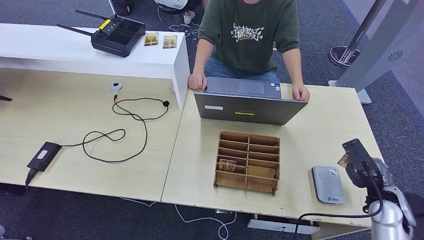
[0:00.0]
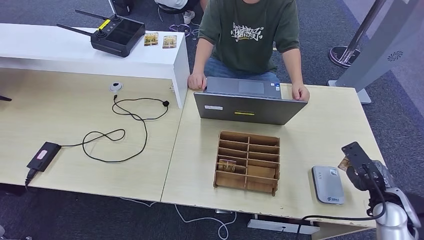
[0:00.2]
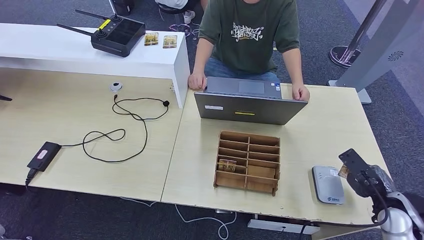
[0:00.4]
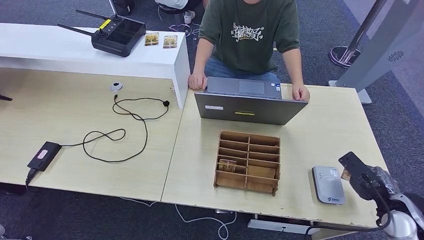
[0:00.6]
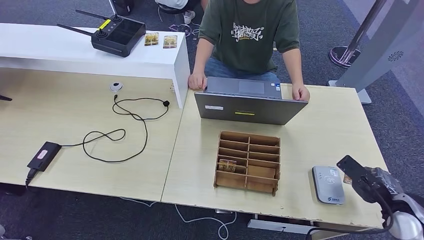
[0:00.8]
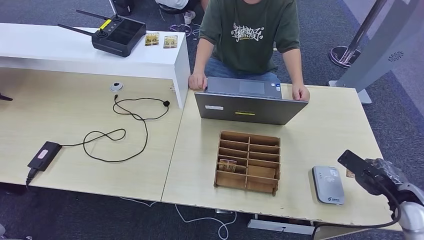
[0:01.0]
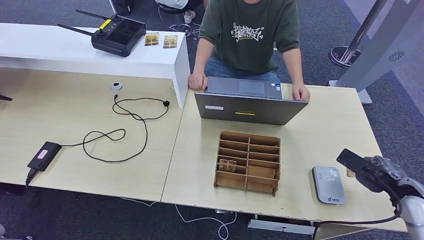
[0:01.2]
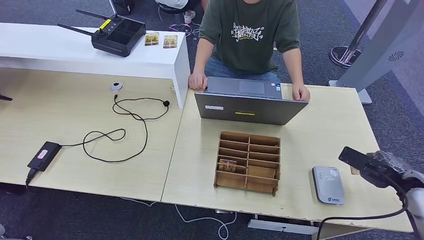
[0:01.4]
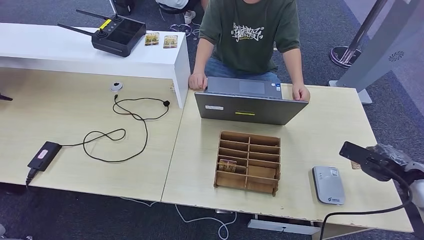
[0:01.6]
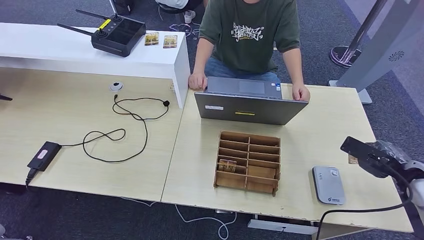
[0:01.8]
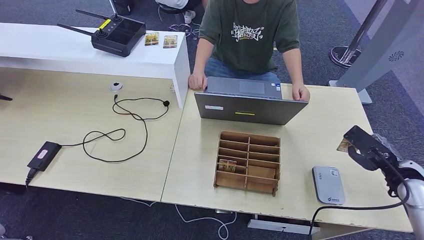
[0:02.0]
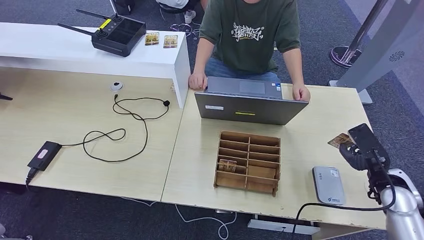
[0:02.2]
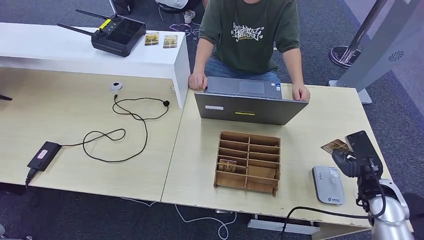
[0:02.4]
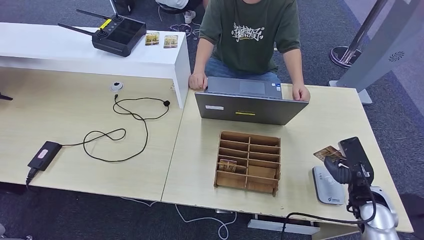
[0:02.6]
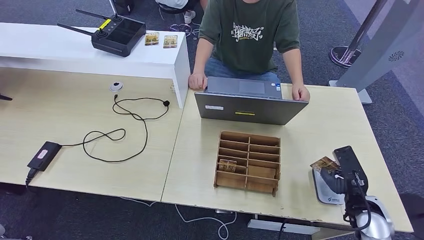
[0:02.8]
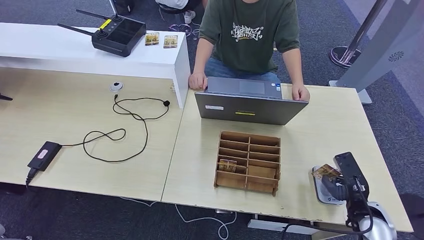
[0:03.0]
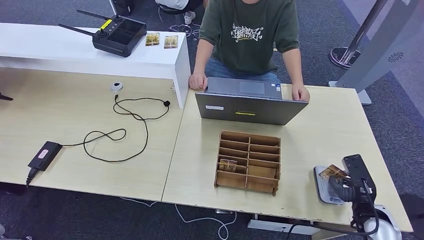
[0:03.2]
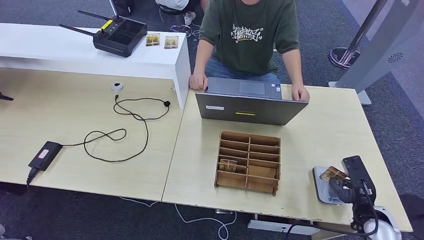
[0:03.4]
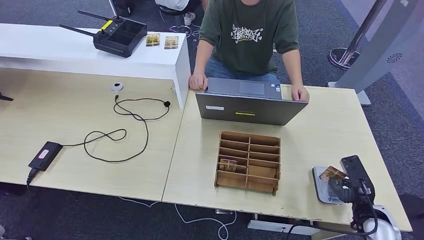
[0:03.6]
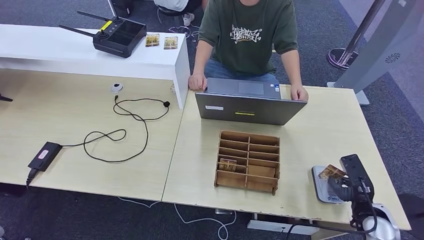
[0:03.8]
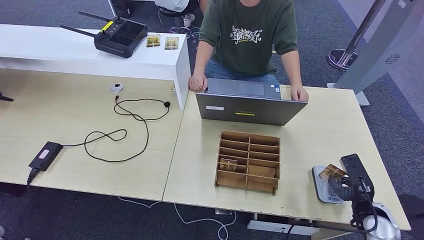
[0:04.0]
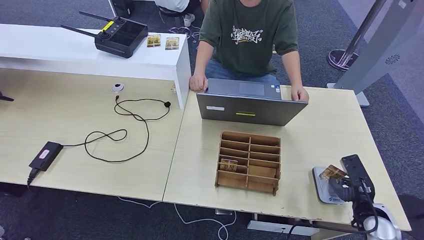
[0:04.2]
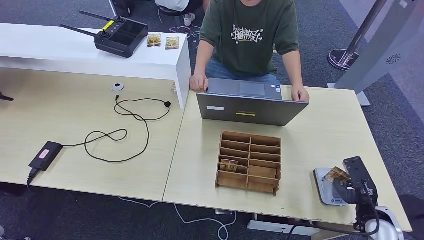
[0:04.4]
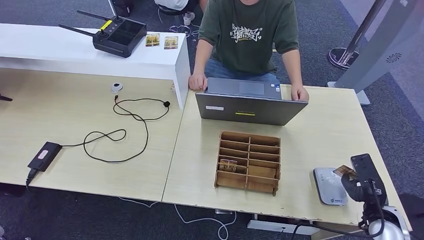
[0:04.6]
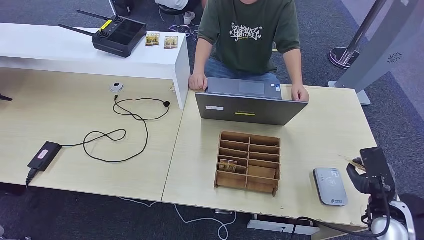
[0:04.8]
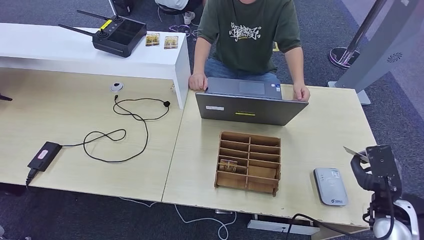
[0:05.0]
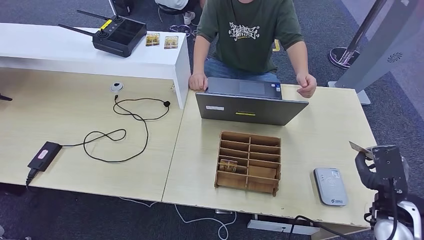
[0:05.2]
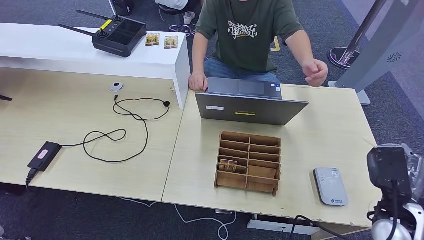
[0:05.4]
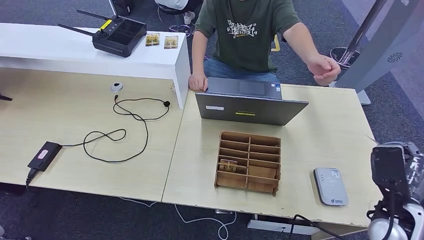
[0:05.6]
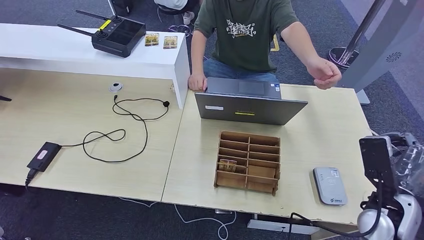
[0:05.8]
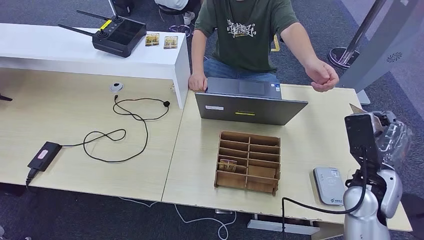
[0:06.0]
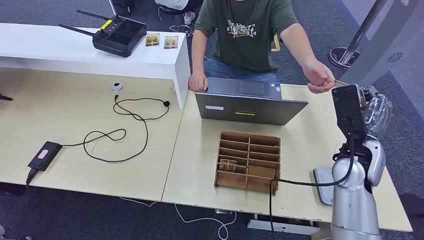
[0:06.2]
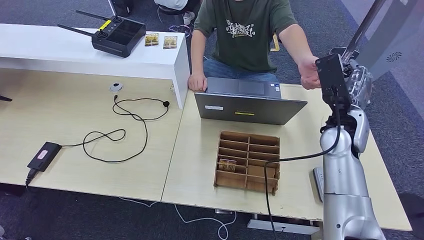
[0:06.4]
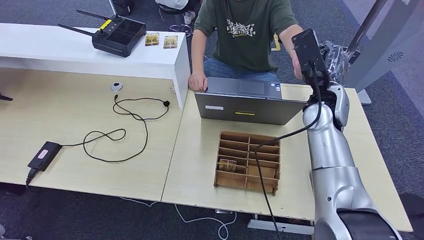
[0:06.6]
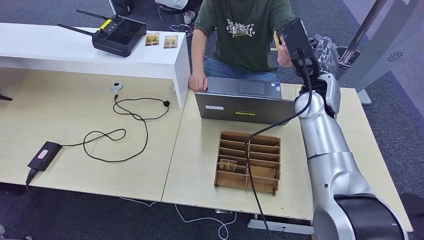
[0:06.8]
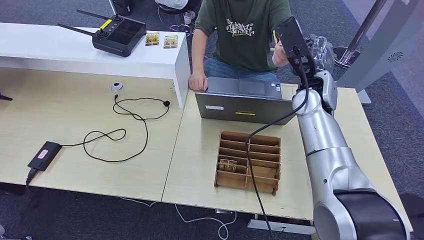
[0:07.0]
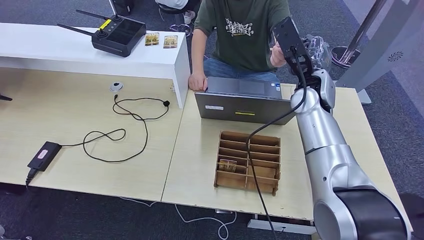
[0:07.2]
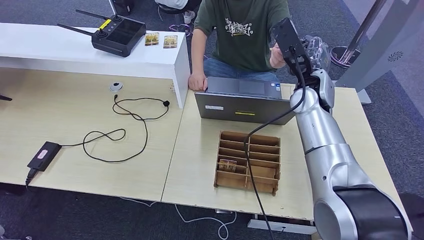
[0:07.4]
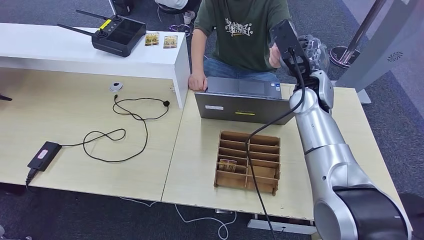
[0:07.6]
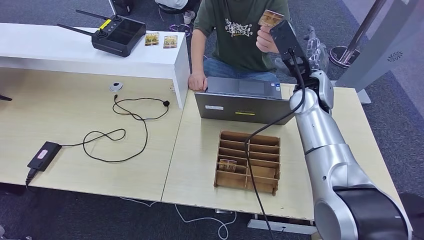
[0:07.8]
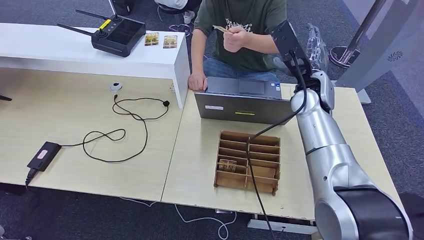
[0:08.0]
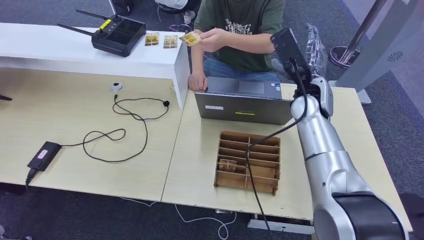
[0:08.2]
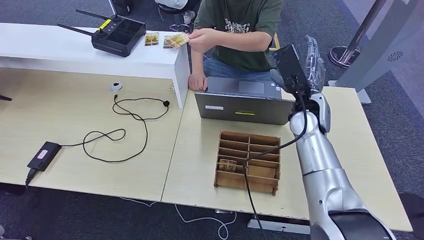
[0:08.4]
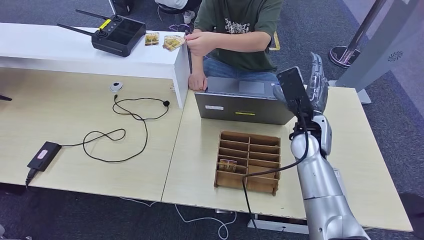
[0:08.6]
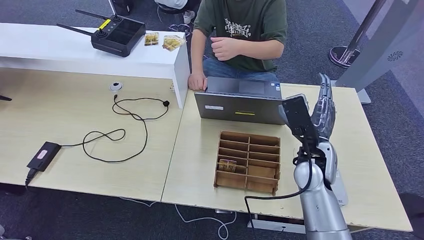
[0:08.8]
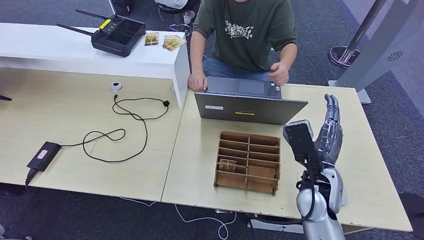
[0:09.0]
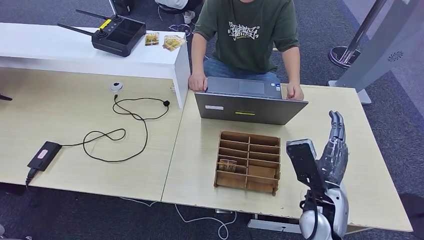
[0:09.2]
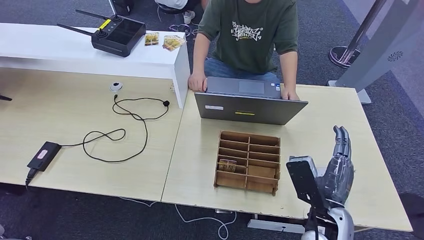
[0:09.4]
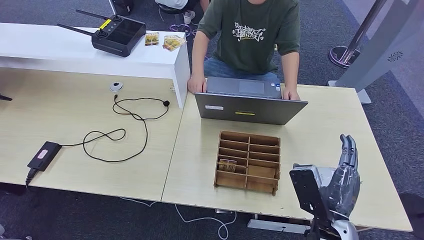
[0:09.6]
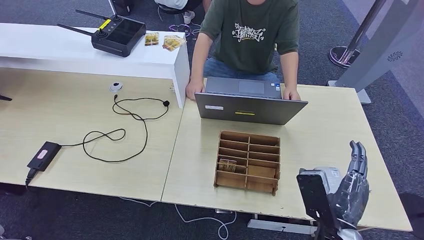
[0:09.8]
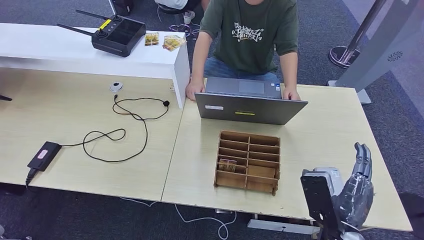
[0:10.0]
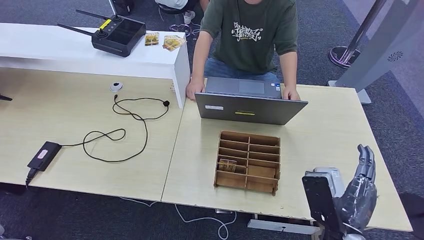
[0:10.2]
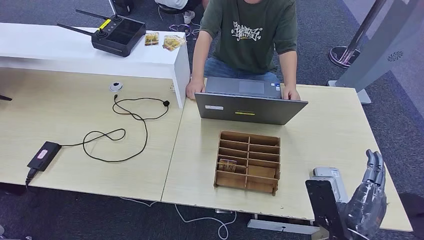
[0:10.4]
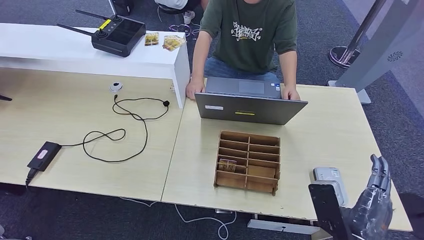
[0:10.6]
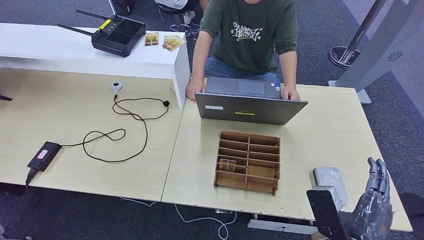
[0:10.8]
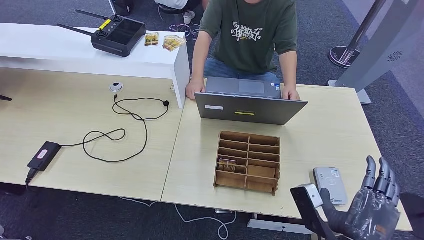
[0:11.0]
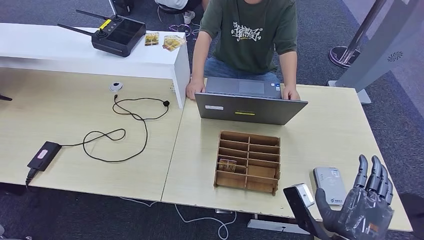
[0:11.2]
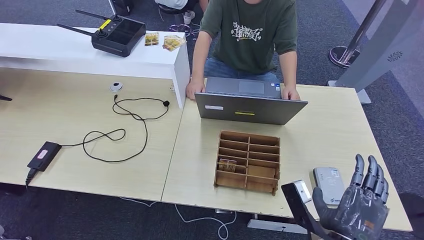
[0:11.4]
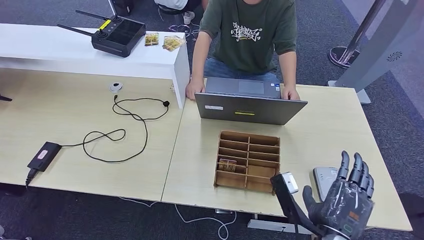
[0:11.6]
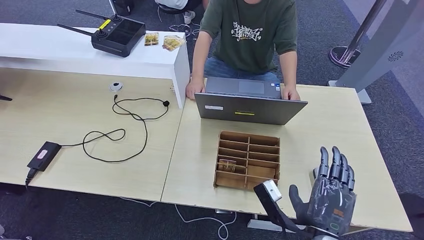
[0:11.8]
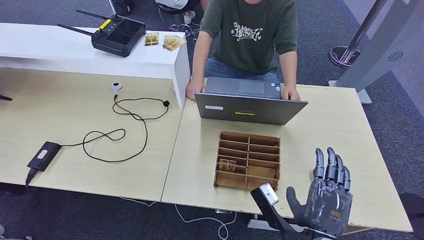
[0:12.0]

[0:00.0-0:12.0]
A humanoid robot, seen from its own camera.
Step, 0:00.0 to 0:05.8: Place the ID card on the card reader.
Step, 0:06.2 to 0:09.0: Hand the ID card to the person.
0:00.0 to 0:01.6: The right hand shifts roughly 15 cm to the right and upward.
0:01.6 to 0:03.0: The right hand shifts roughly 20 cm to the left, downward and backward.
0:03.0 to 0:04.4: The hands stay close to where they were, moving slightly.
0:04.4 to 0:06.0: The right hand shifts about 15 cm upward, to the left and forward.
0:06.0 to 0:07.6: The right hand moves forward, to the left and upward, roughly 25 cm.
0:07.6 to 0:09.0: The right hand shifts about 20 cm backward and downward.
0:09.0 to 0:10.4: The right hand shifts roughly 15 cm backward.

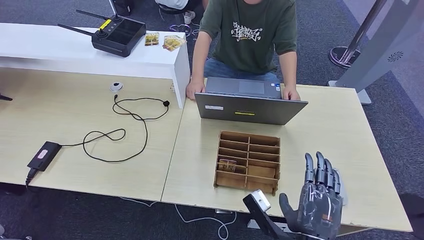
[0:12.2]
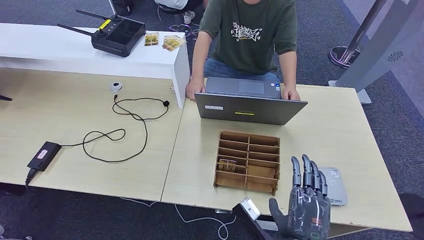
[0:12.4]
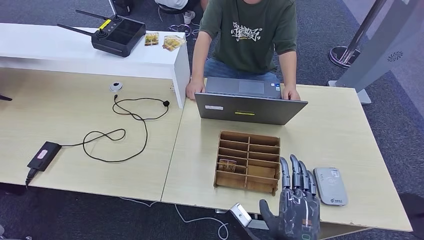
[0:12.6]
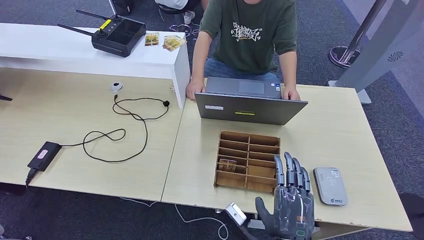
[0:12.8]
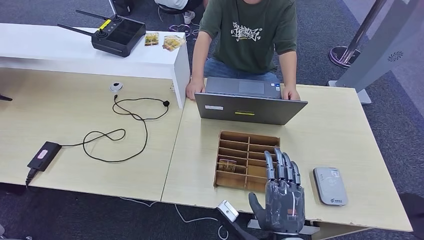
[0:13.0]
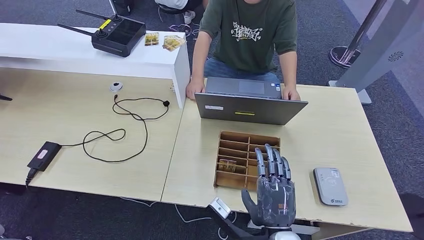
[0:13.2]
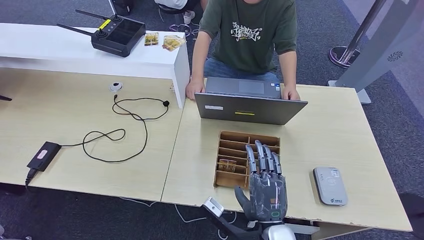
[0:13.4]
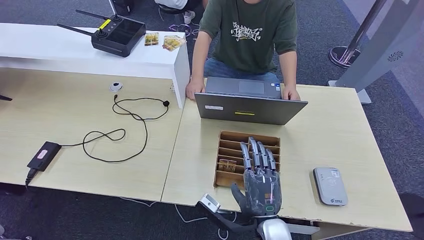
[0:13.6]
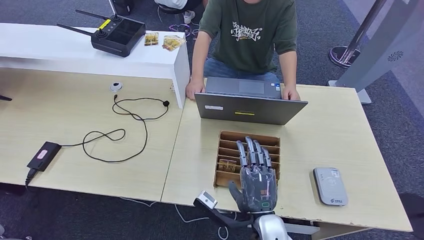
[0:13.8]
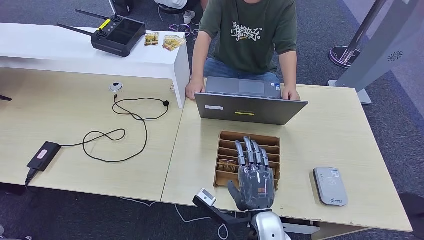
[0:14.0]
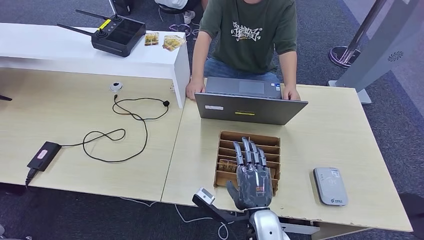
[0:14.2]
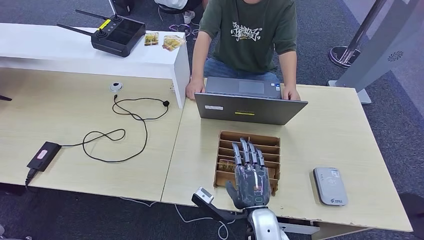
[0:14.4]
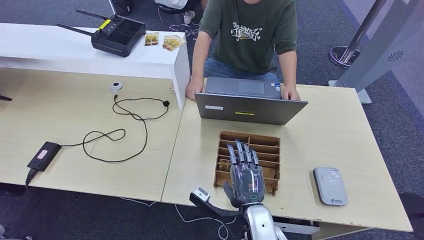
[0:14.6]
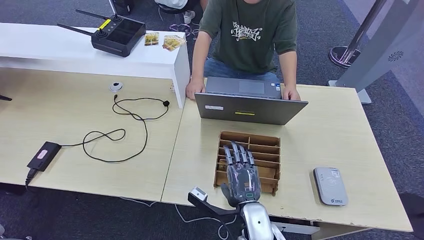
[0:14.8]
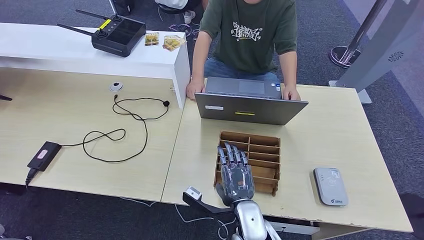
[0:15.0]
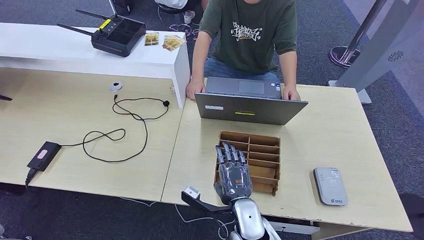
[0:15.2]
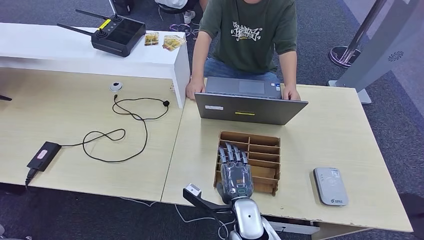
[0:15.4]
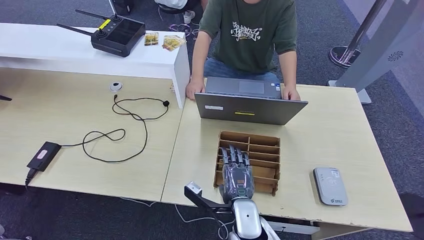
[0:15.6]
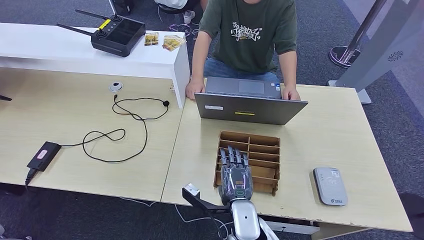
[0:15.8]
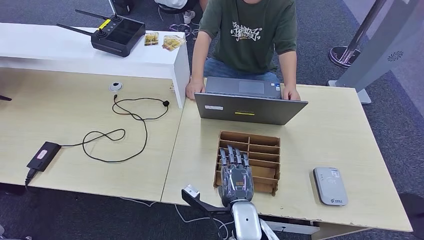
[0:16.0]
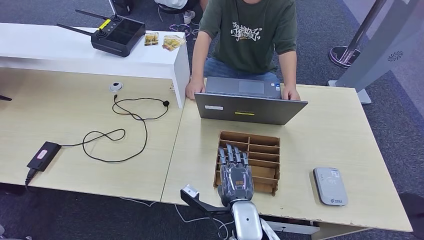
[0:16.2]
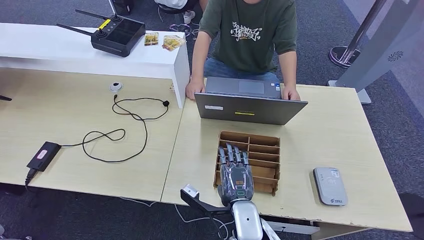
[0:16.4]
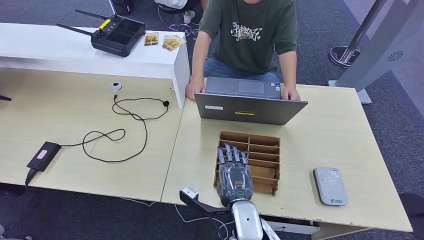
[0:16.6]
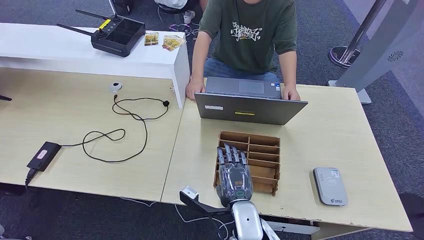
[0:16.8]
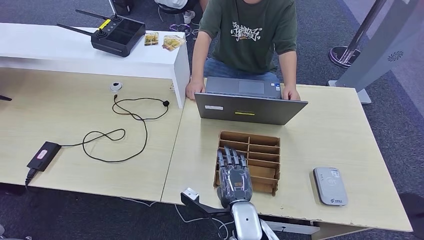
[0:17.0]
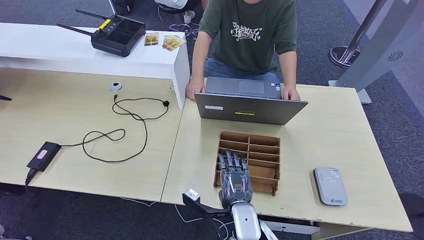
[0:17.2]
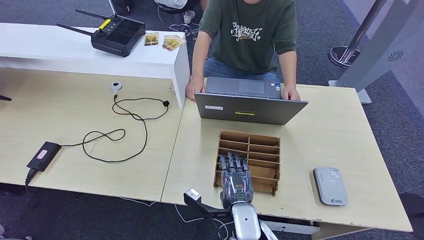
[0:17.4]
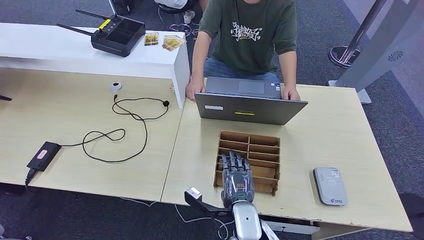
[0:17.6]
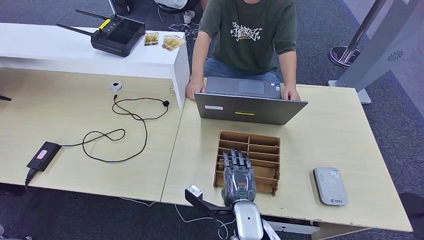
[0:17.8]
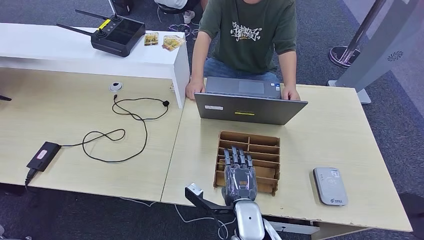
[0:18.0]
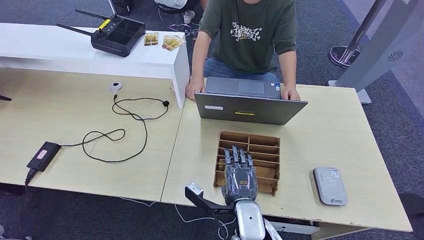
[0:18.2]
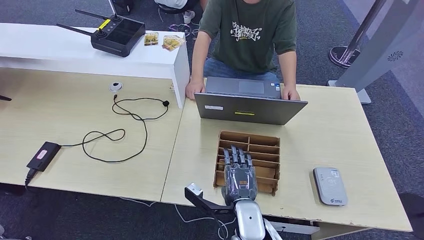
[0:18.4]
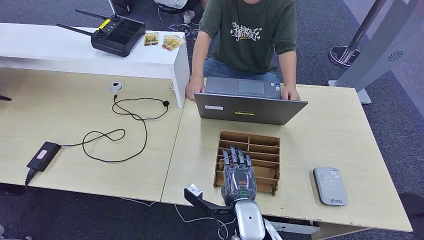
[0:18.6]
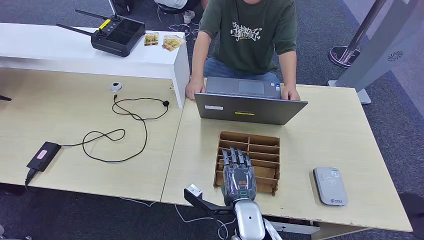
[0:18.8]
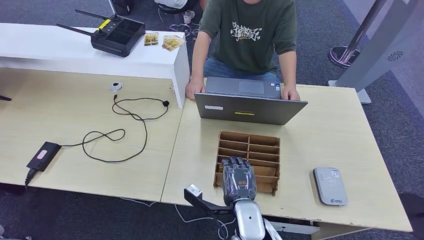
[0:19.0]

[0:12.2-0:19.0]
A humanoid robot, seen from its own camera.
0:12.2 to 0:13.6: The right hand is displaced to the left by approximately 5 cm.
0:13.6 to 0:15.0: The right hand ends up some 5 cm from where it was.
0:15.0 to 0:19.0: The hands make only small movements.
